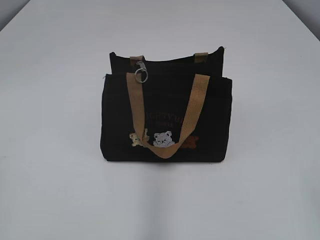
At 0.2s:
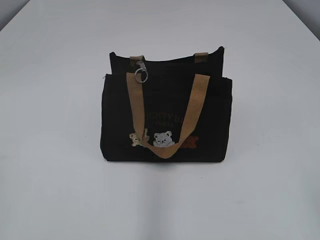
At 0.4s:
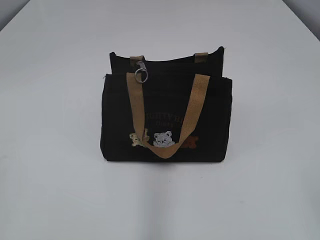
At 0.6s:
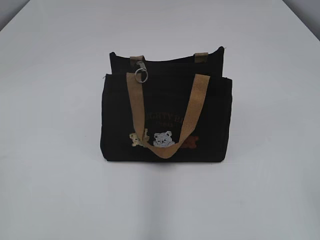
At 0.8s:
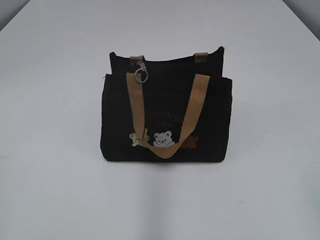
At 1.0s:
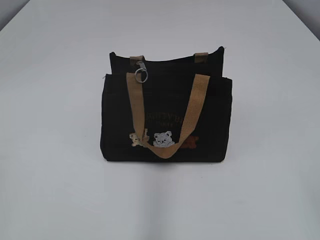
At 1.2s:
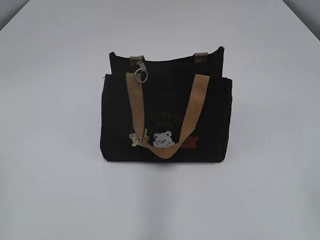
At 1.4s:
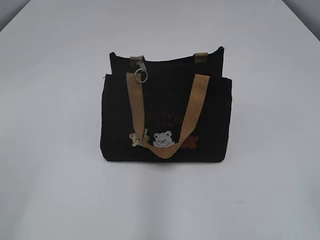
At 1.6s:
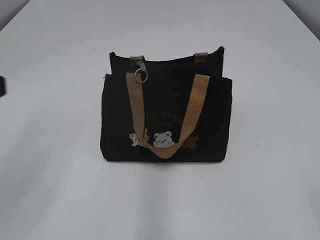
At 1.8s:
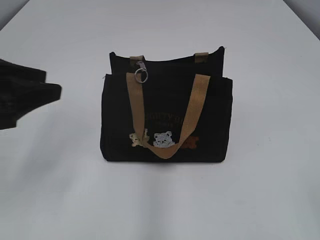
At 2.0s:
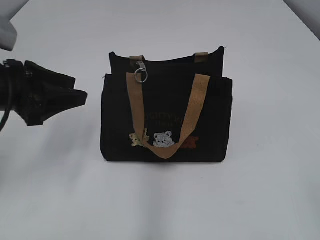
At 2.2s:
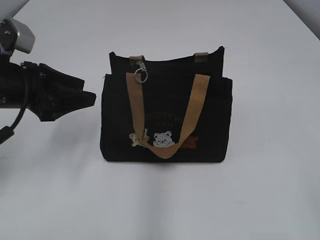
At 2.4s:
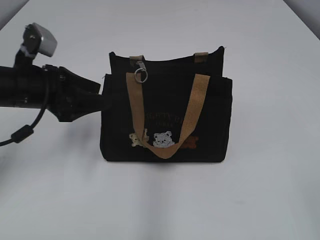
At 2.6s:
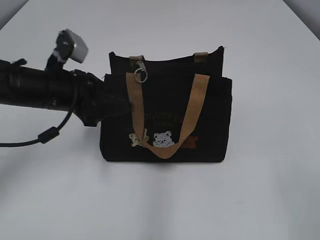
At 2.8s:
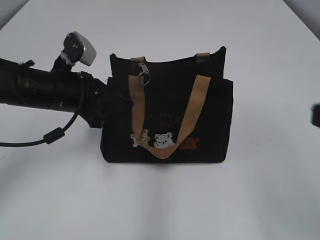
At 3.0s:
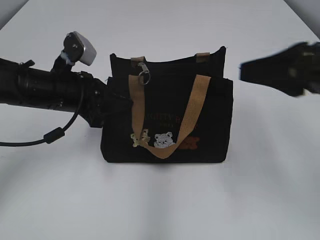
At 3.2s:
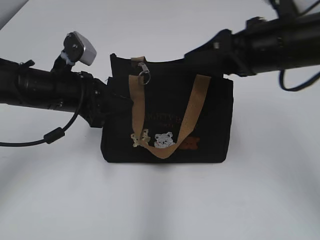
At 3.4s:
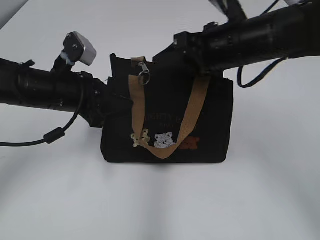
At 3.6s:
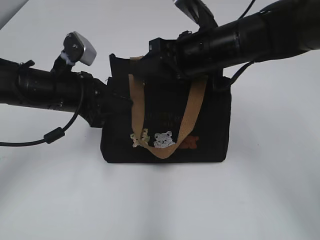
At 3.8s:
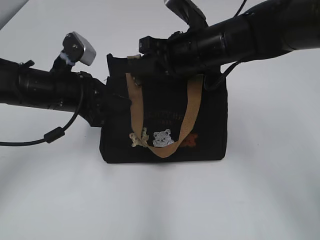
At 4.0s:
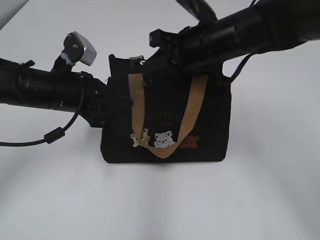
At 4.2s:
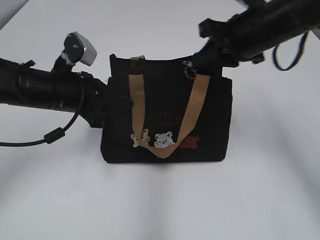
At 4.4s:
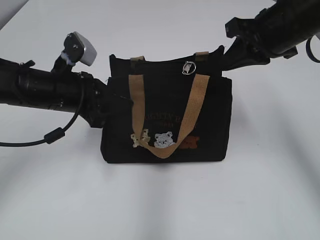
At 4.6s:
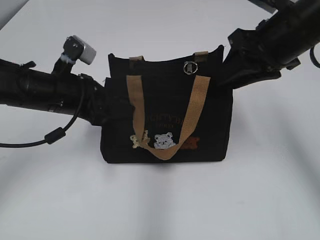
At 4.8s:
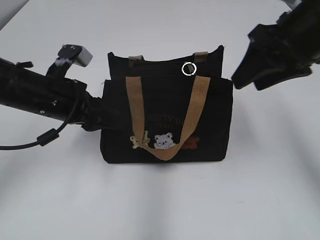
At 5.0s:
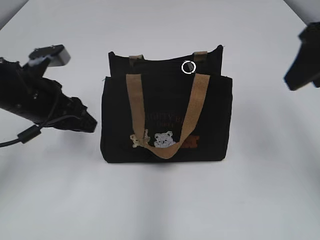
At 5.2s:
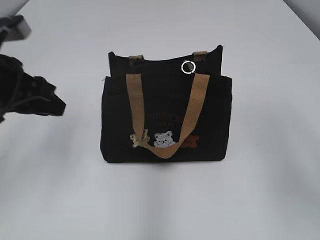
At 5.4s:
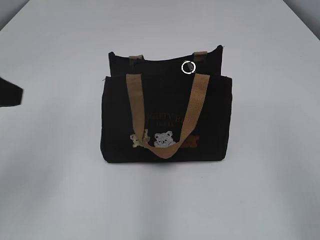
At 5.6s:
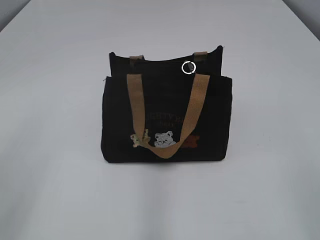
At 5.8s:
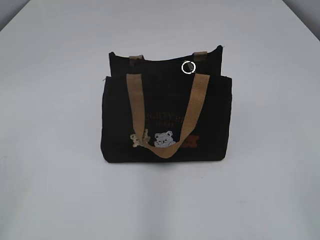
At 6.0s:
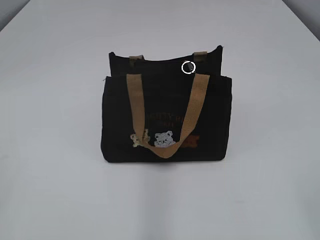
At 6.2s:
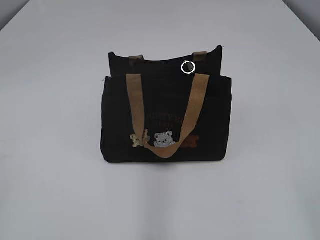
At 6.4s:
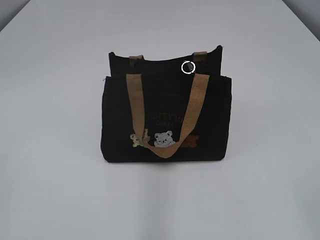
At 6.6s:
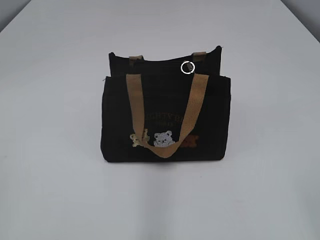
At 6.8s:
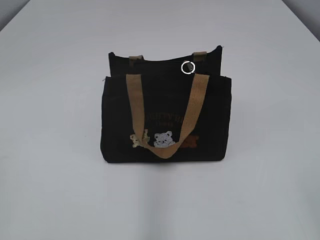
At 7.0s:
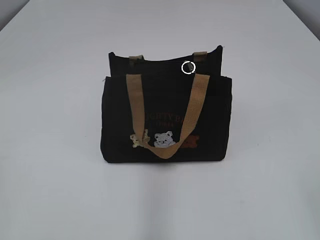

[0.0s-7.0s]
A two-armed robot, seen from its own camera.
Step, 0.0s to 4.4s: Pull open the zipper with your right hand.
Step, 4.8s to 5.0s: Hold the bag with your left hand.
1.4s to 2.8s: The right gripper goes roughly 5 cm forward; the left gripper moves forward, to the right and downward, roughly 35 cm, and opens, then closes once more.
2.8s to 4.2s: The right gripper goes approximately 30 cm forward, and closes.
4.2s to 5.6s: The left gripper shifts some 25 cm backward, upward and to the left, and opens up; the right gripper heads backward and to the right, covering some 30 cm, and opens its fingers.
5.6s to 7.0s: The left gripper shifts roughly 15 cm backward.
